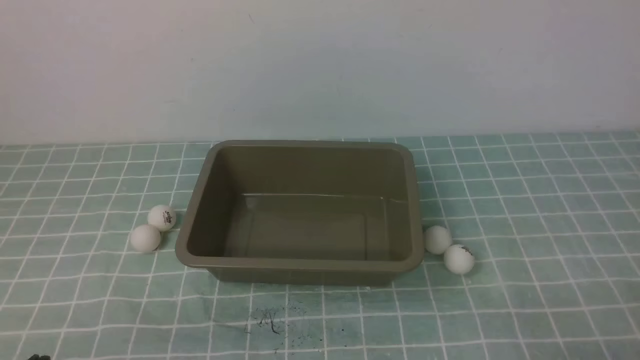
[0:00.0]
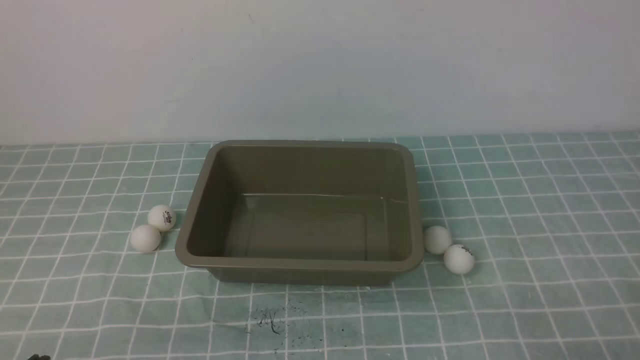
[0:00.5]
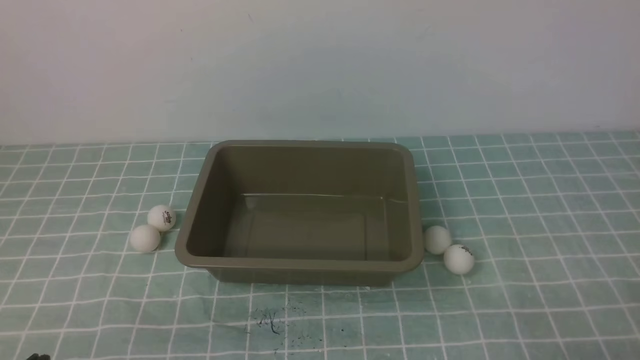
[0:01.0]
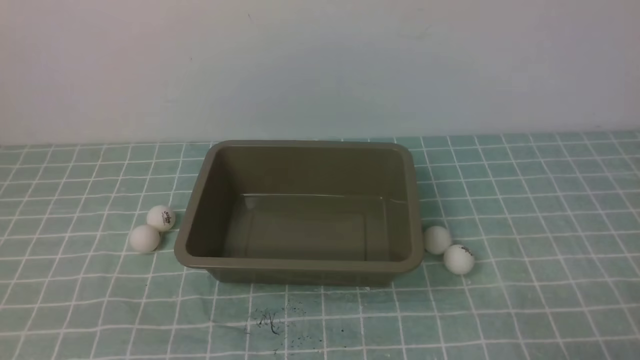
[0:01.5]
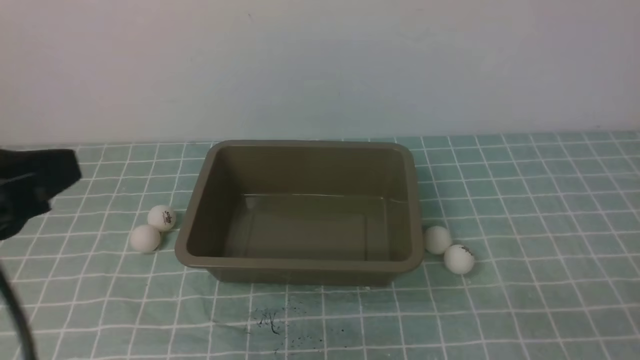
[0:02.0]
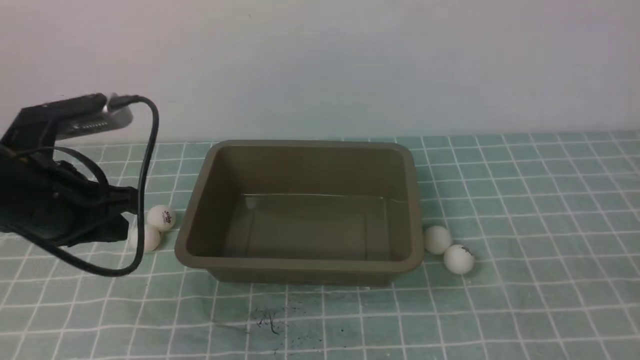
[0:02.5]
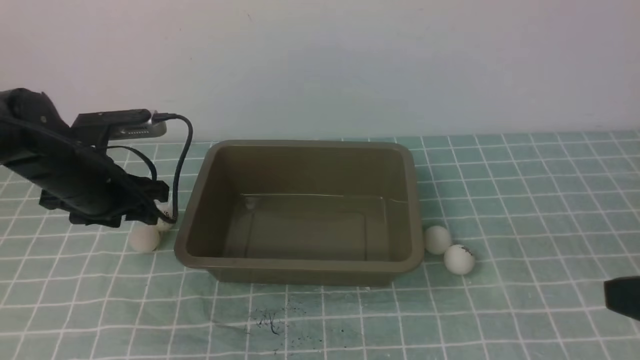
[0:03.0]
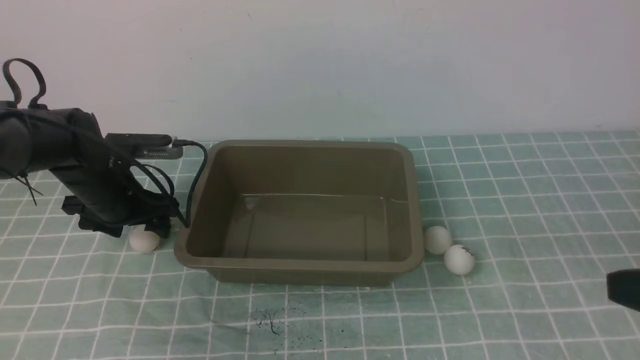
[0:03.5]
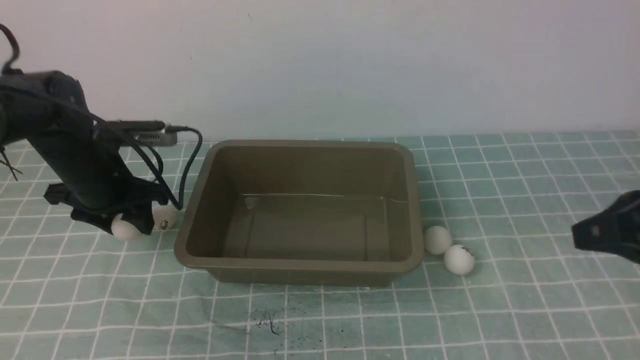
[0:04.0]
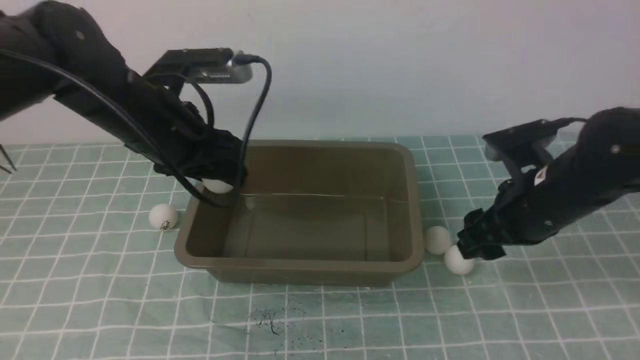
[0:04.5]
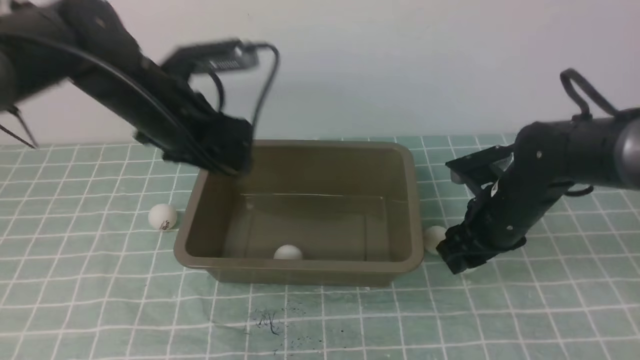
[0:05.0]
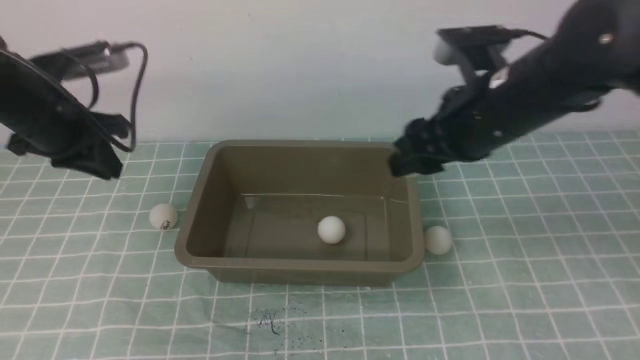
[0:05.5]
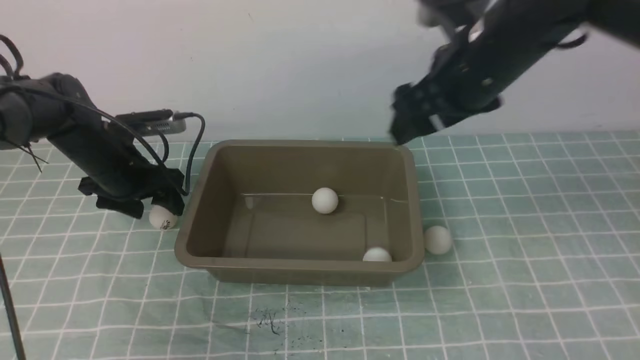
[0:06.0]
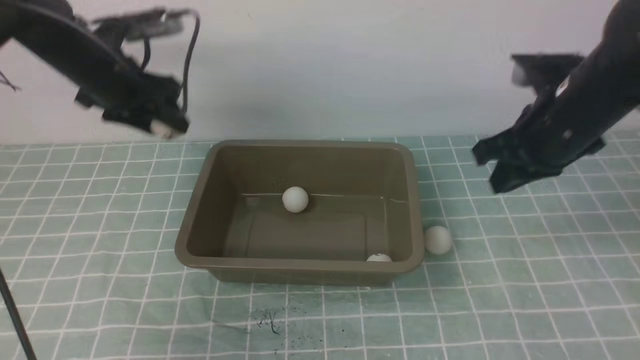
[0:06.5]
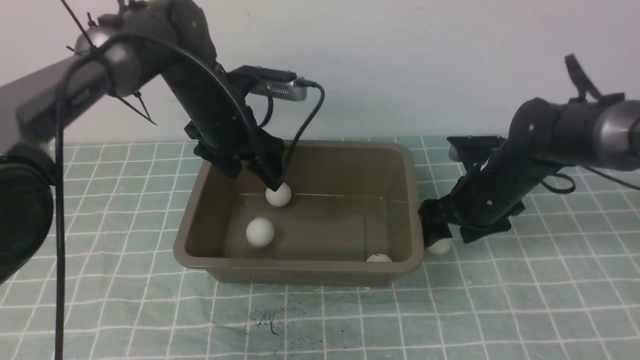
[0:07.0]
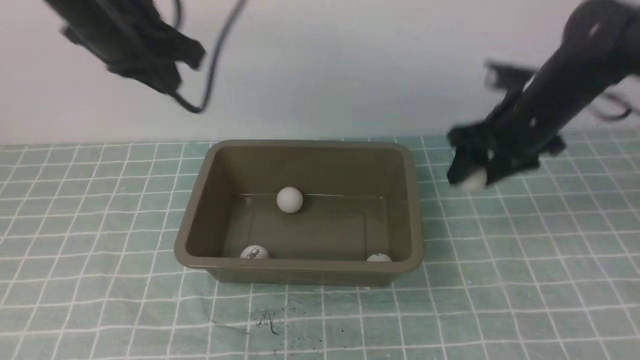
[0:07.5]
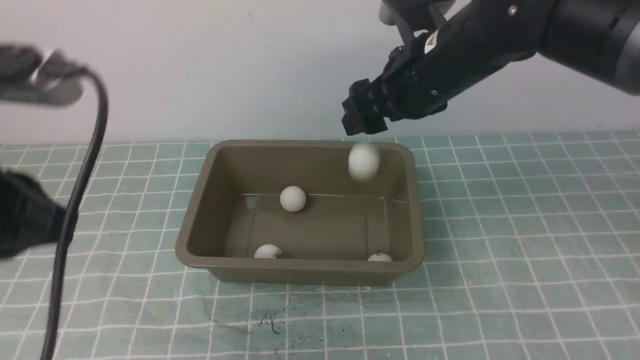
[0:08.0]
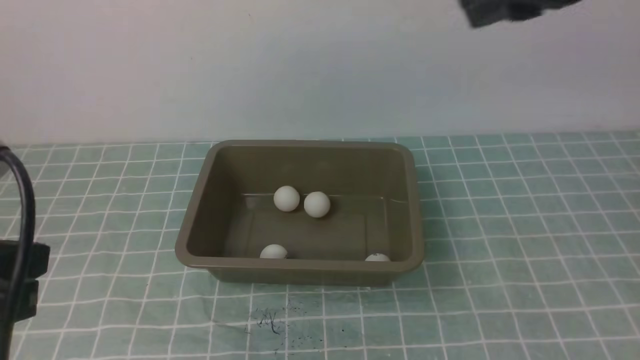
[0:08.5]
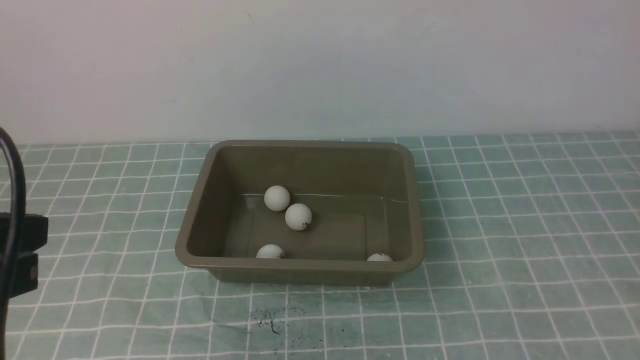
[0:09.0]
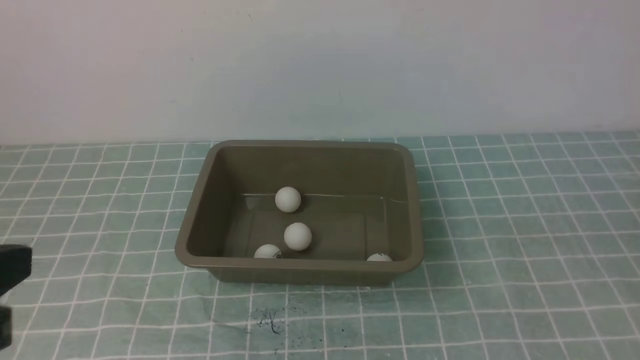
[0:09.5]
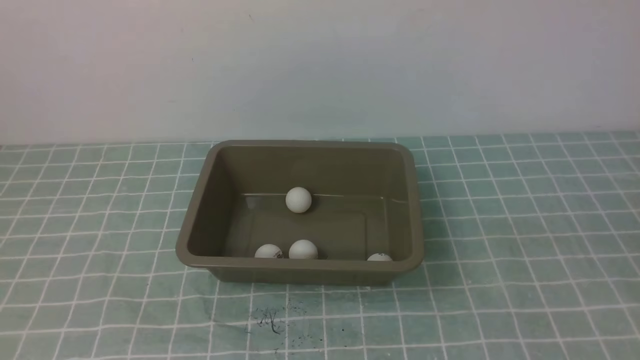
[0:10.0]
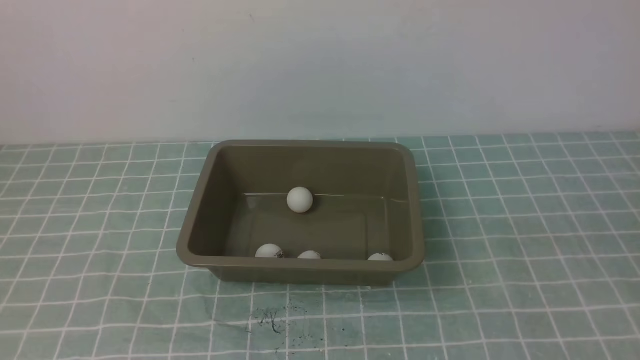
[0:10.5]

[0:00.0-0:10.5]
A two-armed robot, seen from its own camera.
Step, 0:00.0 to 0:04.0: use the left arm to clamp the table tennis ball closest to it.
Step, 0:05.0 to 0:05.5: use the right arm to clamp the table tennis ball closest to it.
0:02.0 to 0:04.0: The left gripper travels forward and downward by about 35 cm, and opens its fingers, while the right gripper is displaced upward and forward by some 15 cm.
0:04.0 to 0:06.5: The left gripper is displaced forward and upward by about 10 cm, goes to the right and returns, some 10 cm each way, and closes, then reopens, while the right gripper moves forward, about 20 cm, and opens, then closes again.
0:06.5 to 0:08.5: The left gripper goes approximately 35 cm backward, and closes up. The right gripper heads upward, to the left and backward, covering some 15 cm, and opens and closes again.
0:08.5 to 0:10.5: The left gripper shifts about 10 cm backward. The right gripper goes approximately 30 cm backward and to the right, and closes its fingers.

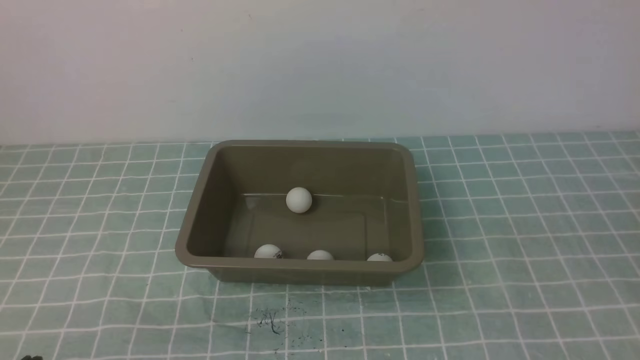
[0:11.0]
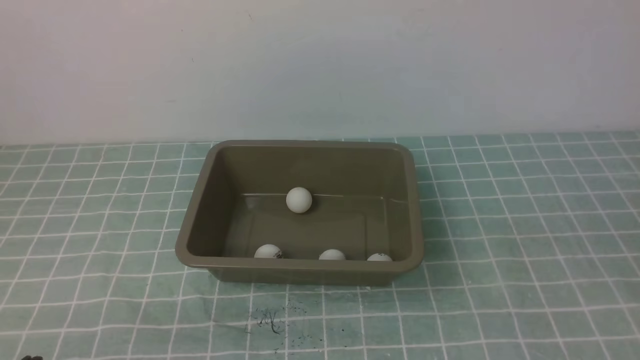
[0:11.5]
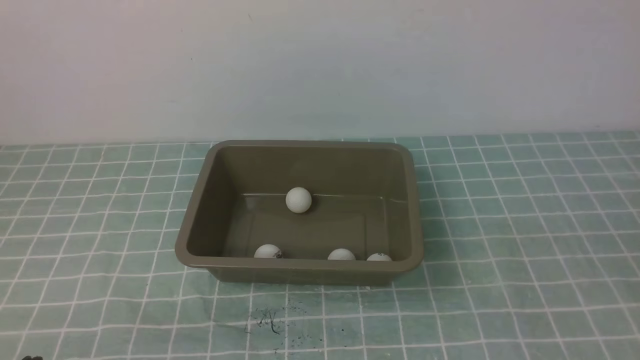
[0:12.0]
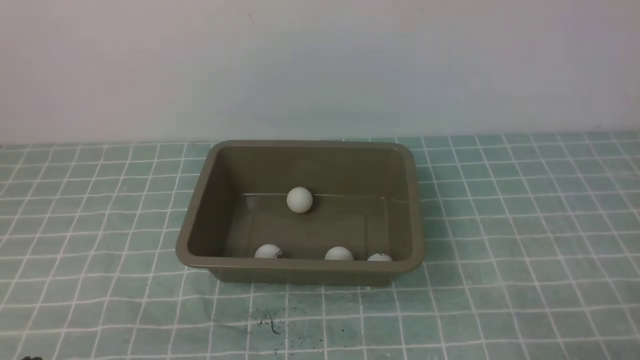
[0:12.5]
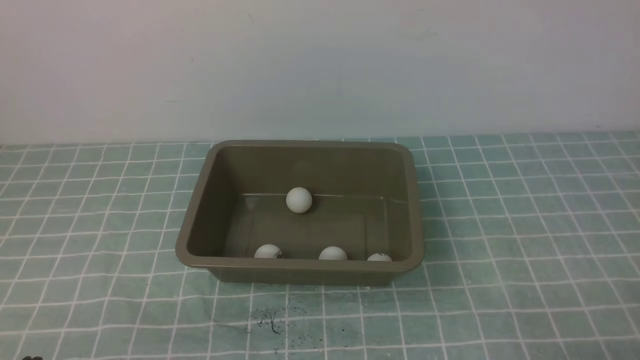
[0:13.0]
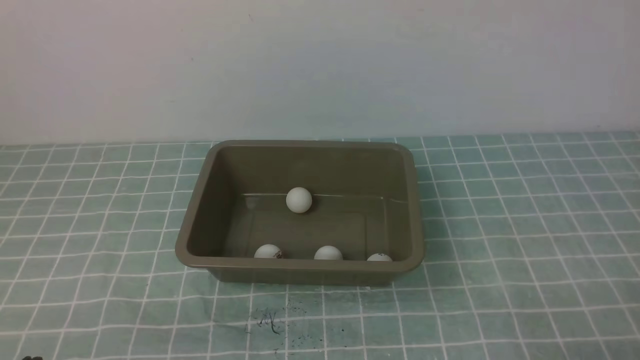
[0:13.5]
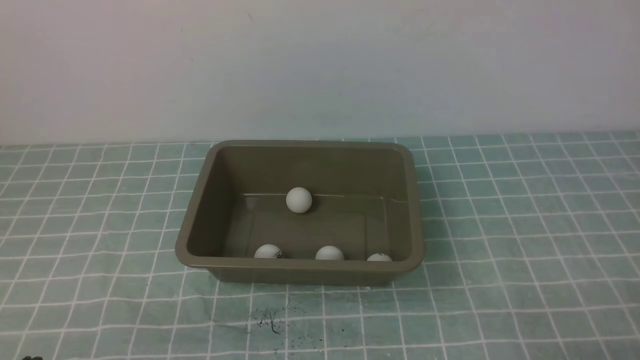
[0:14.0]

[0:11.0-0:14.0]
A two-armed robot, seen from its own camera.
0:12.5 to 0:14.0: Both grippers stay about where they are.
